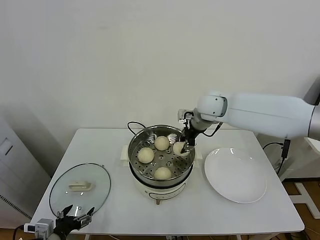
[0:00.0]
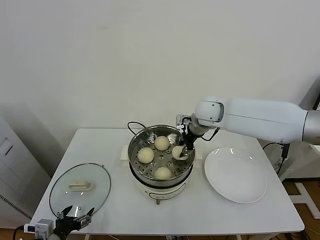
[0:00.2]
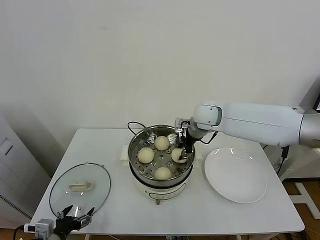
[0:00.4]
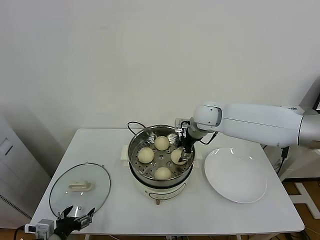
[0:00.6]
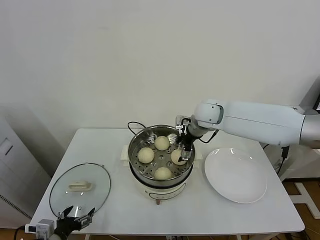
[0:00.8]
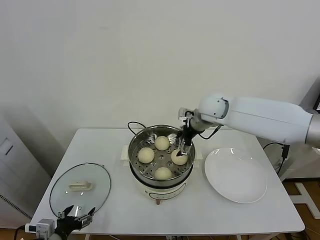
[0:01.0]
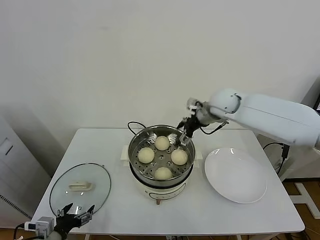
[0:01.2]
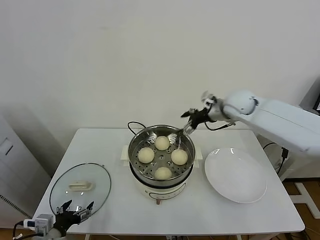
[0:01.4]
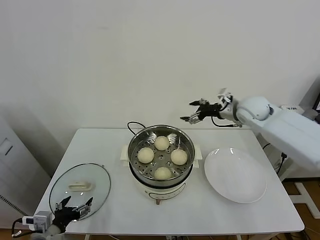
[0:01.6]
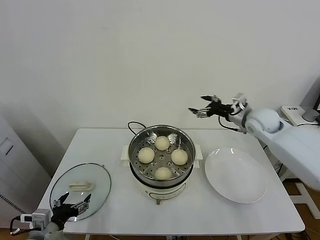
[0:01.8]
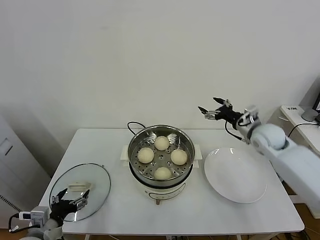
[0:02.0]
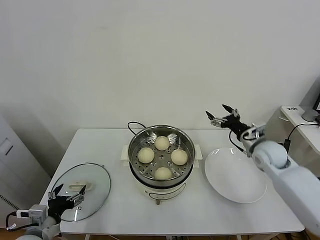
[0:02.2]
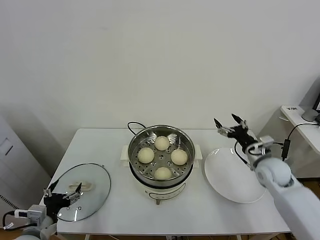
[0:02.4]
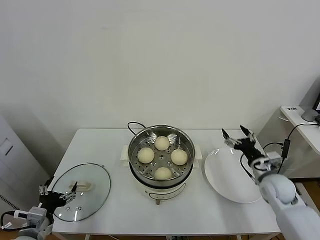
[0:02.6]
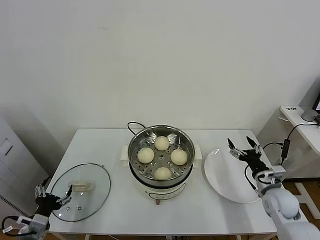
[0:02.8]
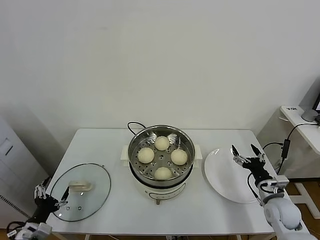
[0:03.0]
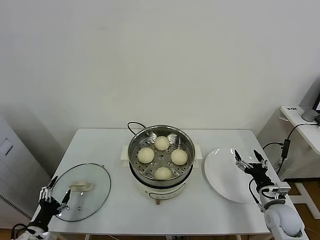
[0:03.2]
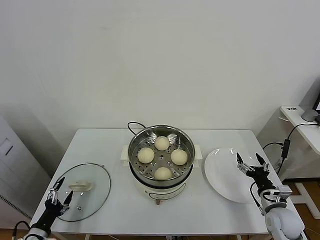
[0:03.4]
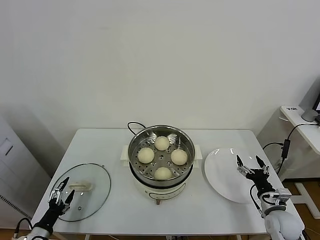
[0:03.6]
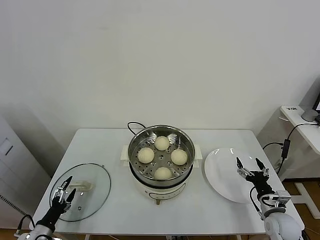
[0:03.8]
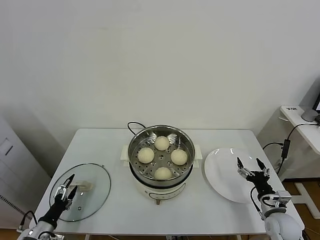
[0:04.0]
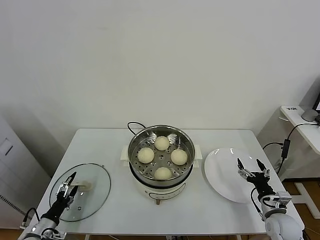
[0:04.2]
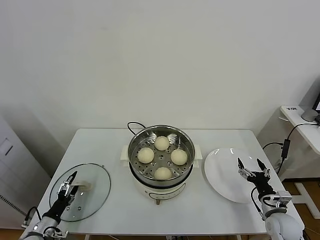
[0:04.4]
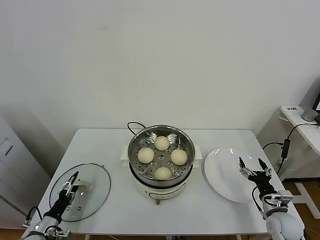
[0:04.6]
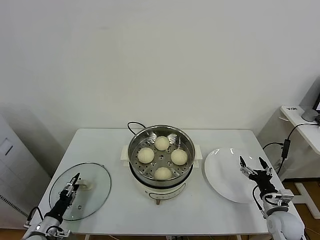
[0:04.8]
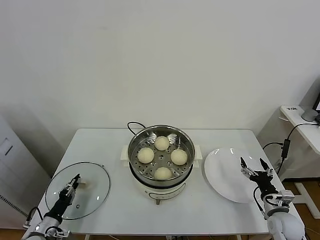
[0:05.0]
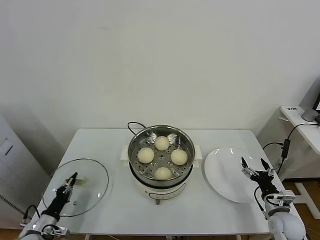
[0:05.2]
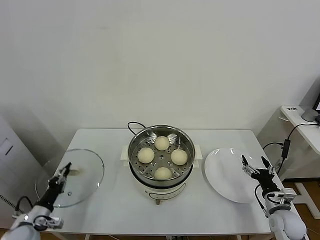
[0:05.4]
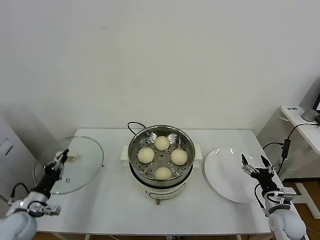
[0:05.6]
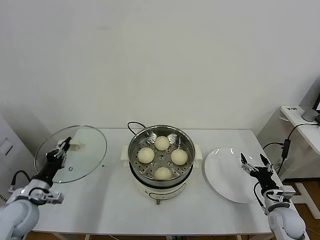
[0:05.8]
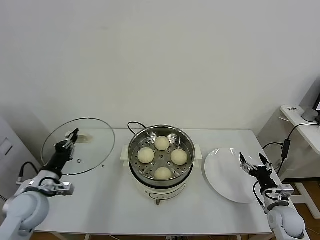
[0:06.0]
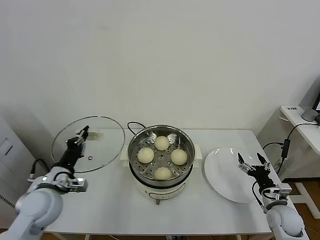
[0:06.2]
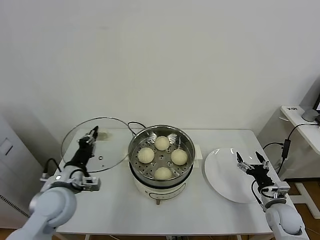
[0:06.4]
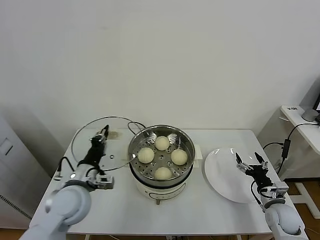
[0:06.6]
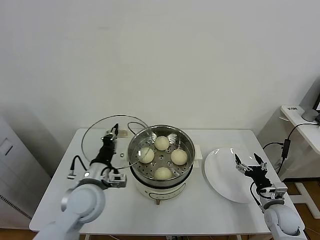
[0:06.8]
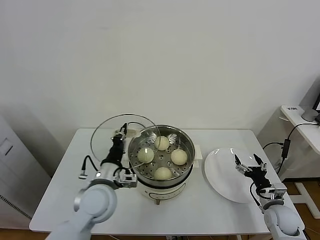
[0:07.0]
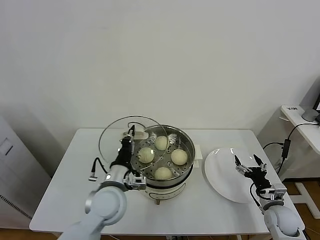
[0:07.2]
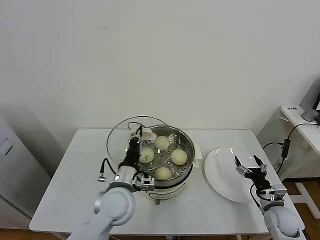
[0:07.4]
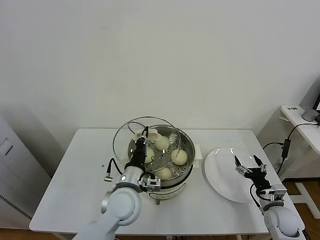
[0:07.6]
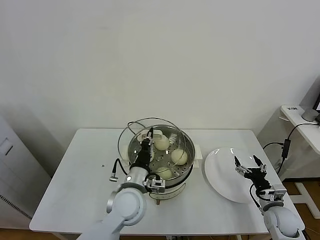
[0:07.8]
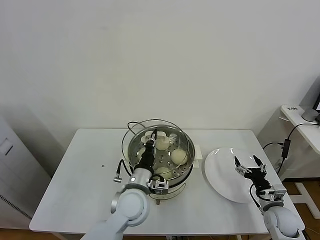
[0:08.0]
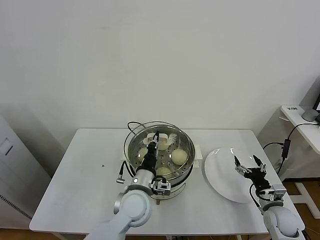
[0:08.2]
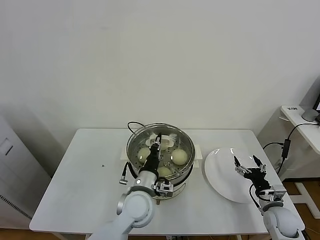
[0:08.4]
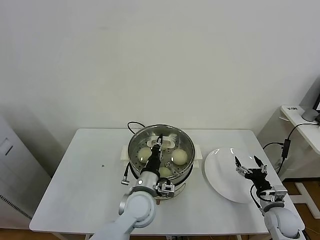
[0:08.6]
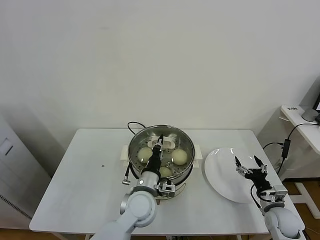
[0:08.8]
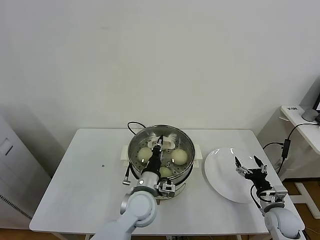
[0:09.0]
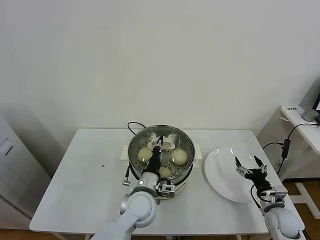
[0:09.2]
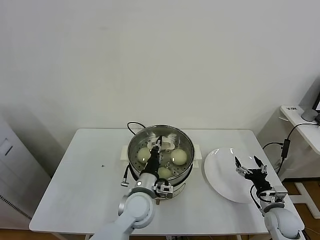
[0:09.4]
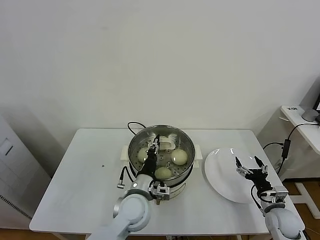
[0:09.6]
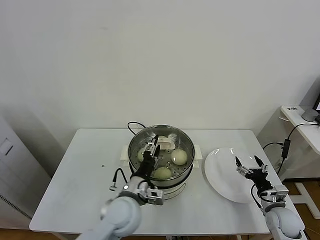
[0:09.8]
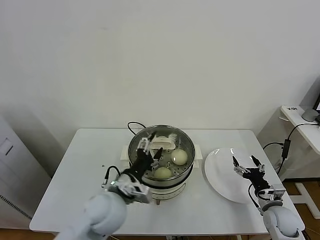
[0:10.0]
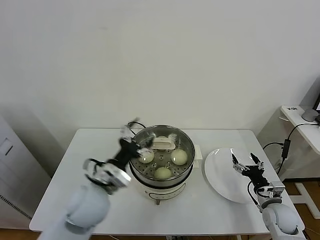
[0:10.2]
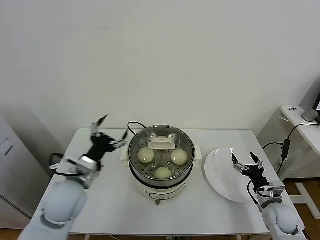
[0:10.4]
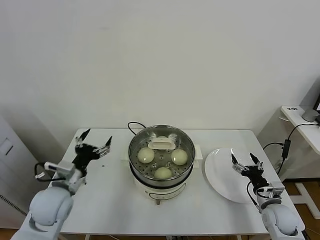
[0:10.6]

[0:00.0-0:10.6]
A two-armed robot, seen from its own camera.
Task of the whole recording: take steamed baozi put them in steamer.
Step, 0:01.2 to 0:05.2: Grasp the pot lid with left gripper.
Step, 0:05.6 to 0:10.2: Place the pot lid on the steamer with left gripper.
0:00.0 to 0:01.6: The right gripper heads to the right, covering approximately 15 cm, and opens.
0:01.6 to 0:03.0: The right gripper shifts some 35 cm downward and backward. The left gripper shifts roughly 10 cm to the left and downward.
0:03.0 to 0:04.6: The left gripper goes some 10 cm downward; the right gripper ends up approximately 5 cm from where it was.
0:04.6 to 0:06.0: The left gripper travels upward by roughly 20 cm, and closes its fingers.
0:06.0 to 0:07.6: The left gripper is displaced to the right by about 25 cm.
0:07.6 to 0:09.0: The left gripper ends up about 5 cm from where it was.
0:09.0 to 0:10.6: The left gripper travels to the left by approximately 20 cm, and opens its fingers.

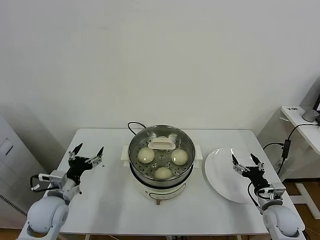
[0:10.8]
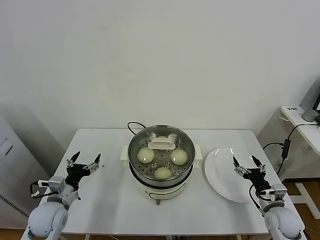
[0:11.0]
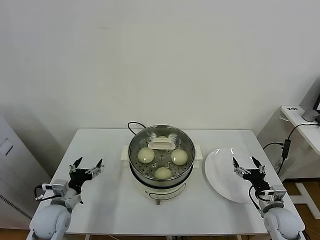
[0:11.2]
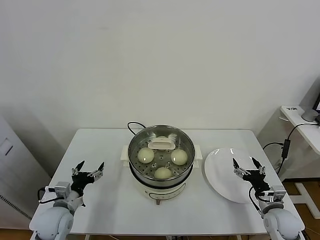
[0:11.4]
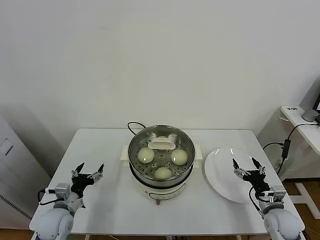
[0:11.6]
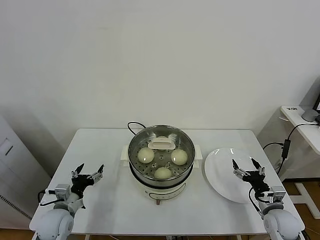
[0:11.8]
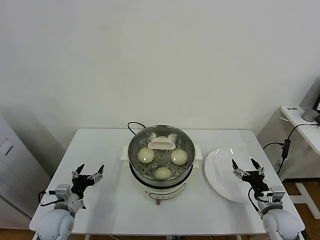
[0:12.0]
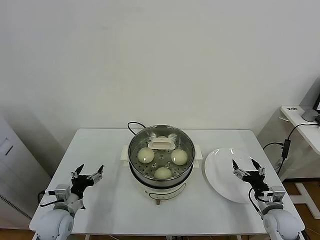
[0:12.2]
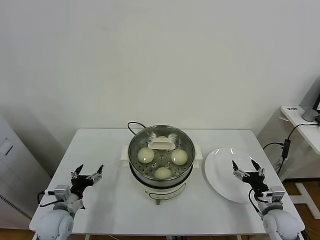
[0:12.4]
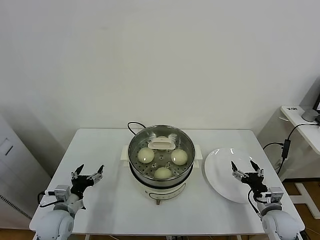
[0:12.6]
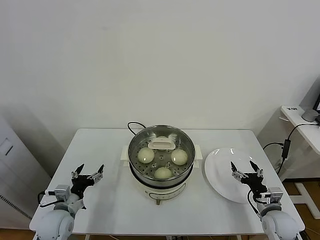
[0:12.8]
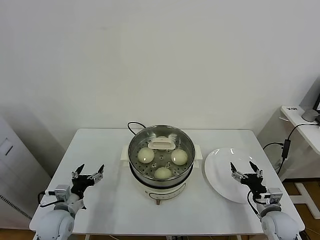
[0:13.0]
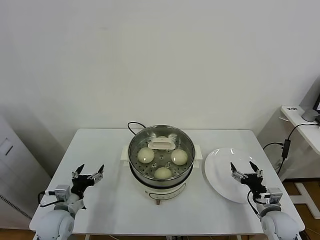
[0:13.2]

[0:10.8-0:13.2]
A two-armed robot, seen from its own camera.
Task of the whole recording: take steamed baozi put them in steamer.
0:10.8 to 0:12.0: The left gripper goes roughly 10 cm downward.
0:12.0 to 0:13.2: Neither gripper changes place.

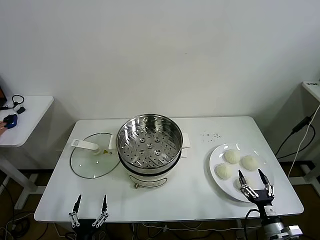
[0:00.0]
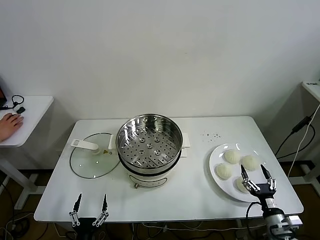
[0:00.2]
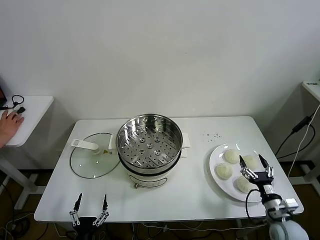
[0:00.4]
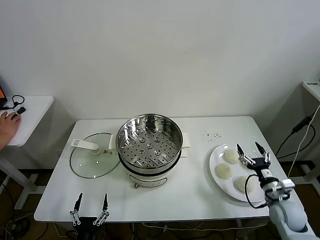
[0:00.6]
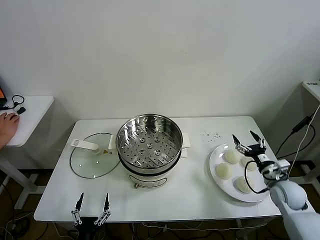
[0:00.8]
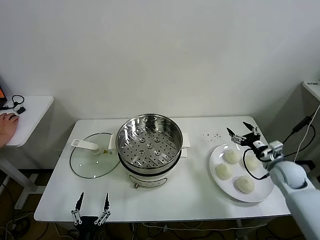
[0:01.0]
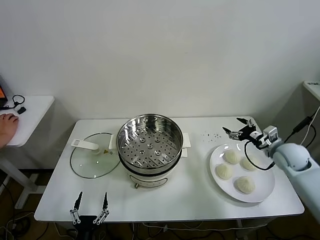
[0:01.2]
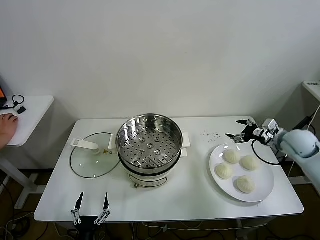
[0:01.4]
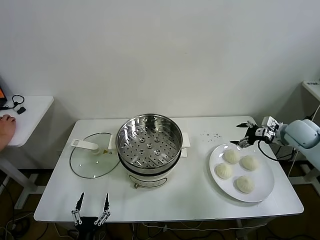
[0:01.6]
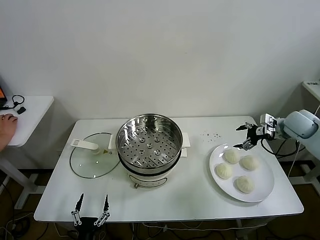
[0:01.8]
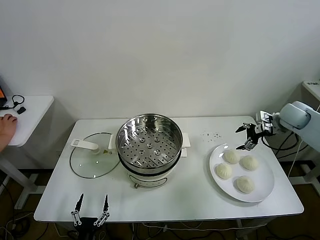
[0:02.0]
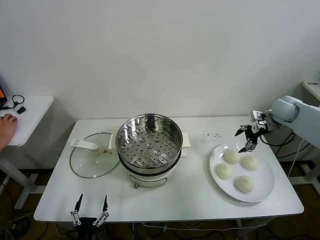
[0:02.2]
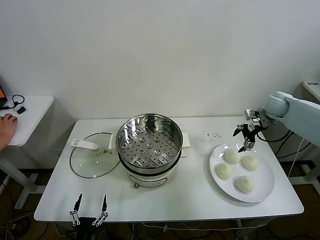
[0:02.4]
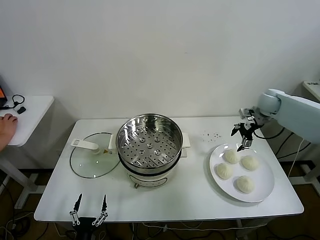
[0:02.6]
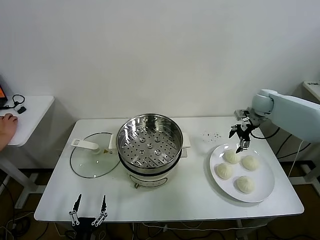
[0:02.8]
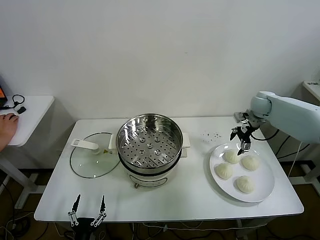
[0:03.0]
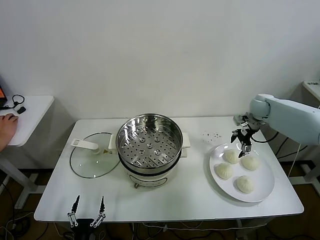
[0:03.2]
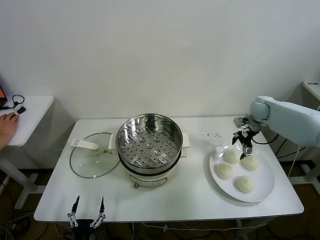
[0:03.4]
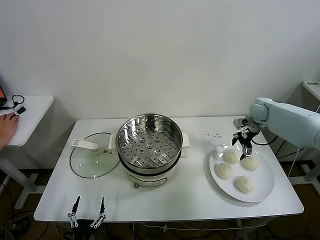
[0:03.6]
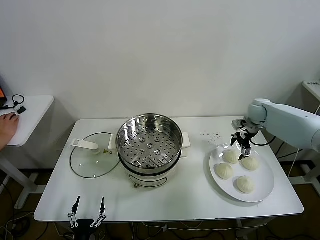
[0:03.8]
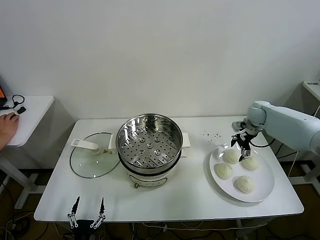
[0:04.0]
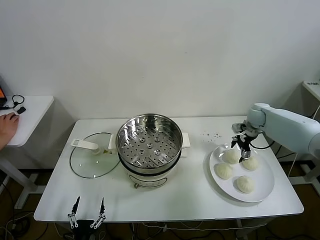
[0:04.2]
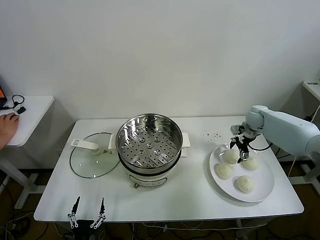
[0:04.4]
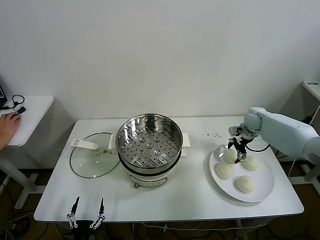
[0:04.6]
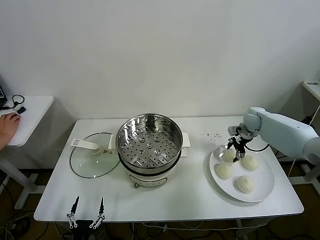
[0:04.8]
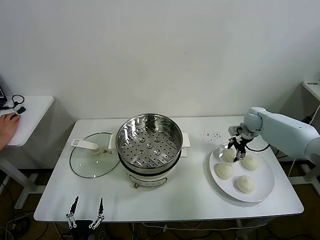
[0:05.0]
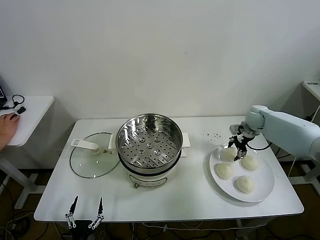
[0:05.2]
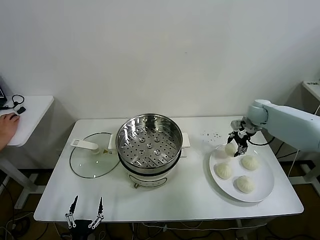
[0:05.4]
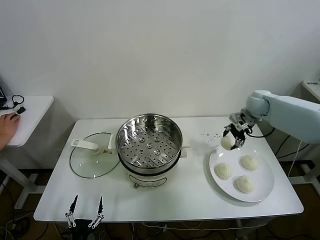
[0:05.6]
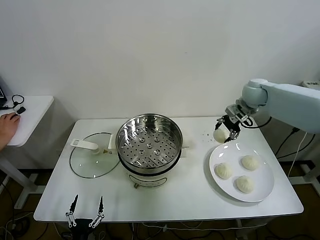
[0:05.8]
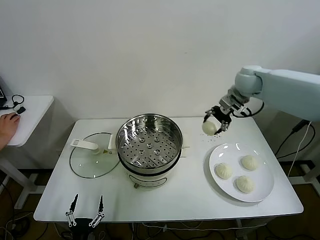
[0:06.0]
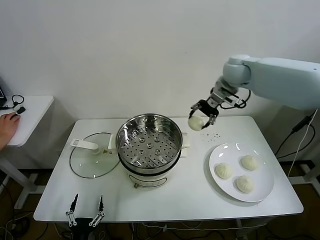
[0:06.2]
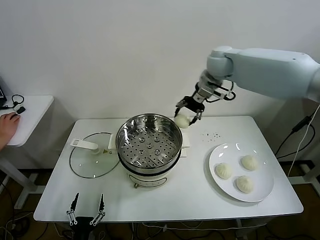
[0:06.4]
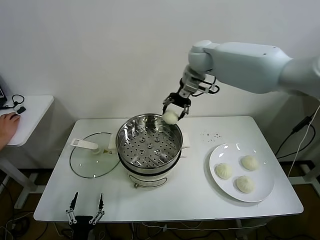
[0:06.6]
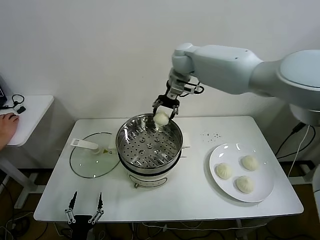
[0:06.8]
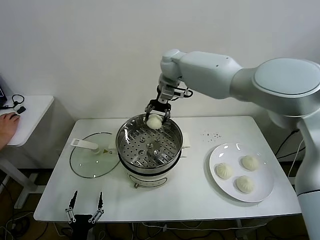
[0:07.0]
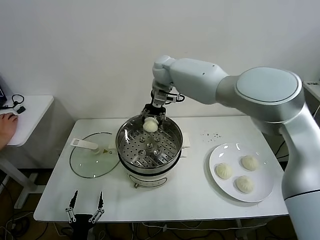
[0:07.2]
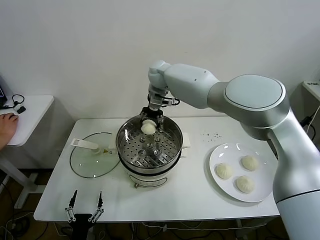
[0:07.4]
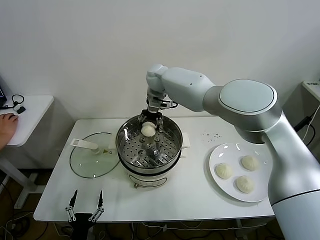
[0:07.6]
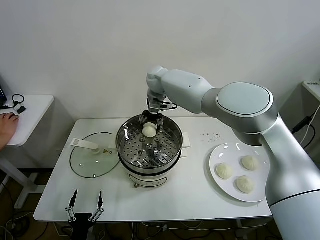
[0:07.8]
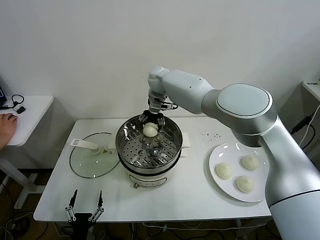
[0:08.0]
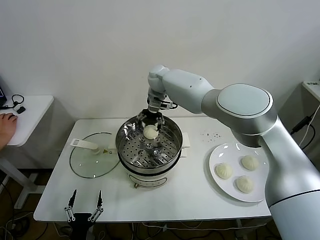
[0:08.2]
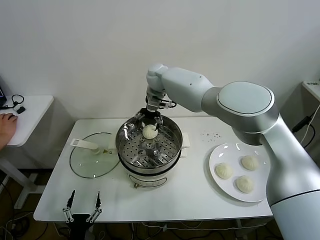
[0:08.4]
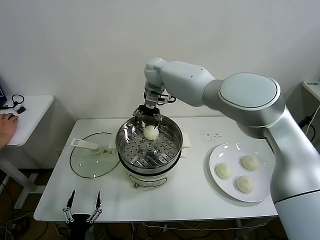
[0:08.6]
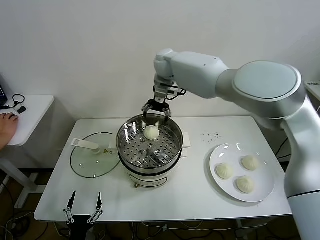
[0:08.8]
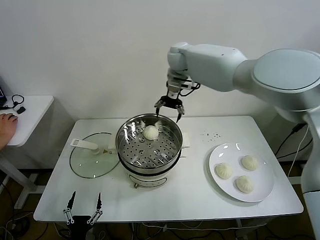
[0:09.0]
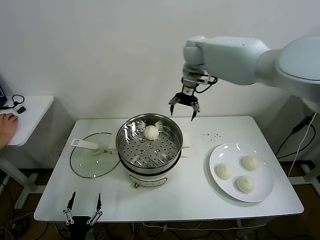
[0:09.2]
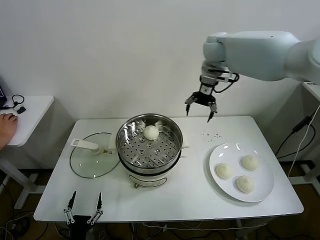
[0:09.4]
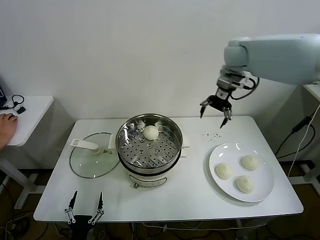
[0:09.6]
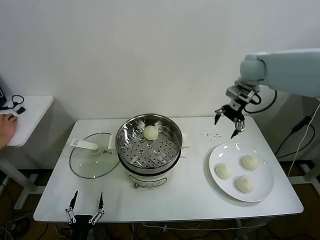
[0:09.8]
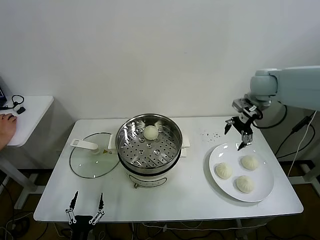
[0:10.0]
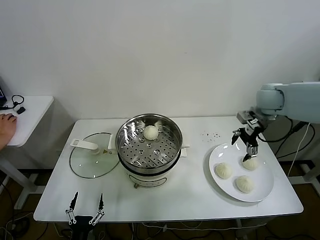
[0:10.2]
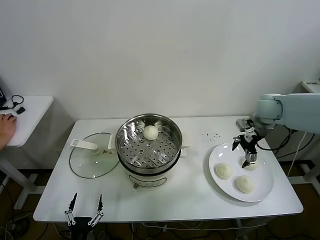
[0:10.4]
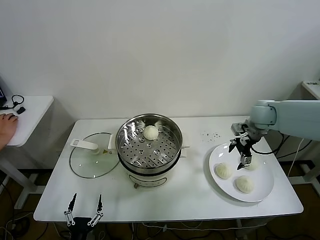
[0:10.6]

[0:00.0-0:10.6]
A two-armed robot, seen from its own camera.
Task of the whole recording: take steamed baozi put them in steamer.
Step, 0:00.0 to 0:05.0: Grasp the baozi in the plate with right gripper.
Step, 0:05.2 to 0:08.2: Place the baozi on the steamer with right gripper.
0:01.6 to 0:03.0: The right gripper is displaced forward and to the left by approximately 15 cm.
0:03.0 to 0:04.6: The right gripper shifts about 10 cm downward.
0:04.6 to 0:06.0: The right gripper is displaced upward and to the left by about 20 cm, and closes.
0:06.0 to 0:07.6: The right gripper is displaced to the left by about 30 cm.
0:07.6 to 0:09.0: The right gripper heads upward and to the right, covering some 10 cm, and opens up.
0:09.0 to 0:10.6: The right gripper moves to the right, backward and downward, some 35 cm.
